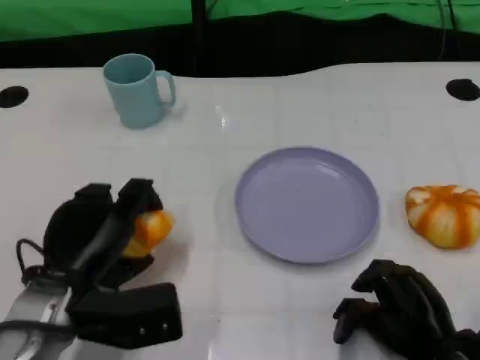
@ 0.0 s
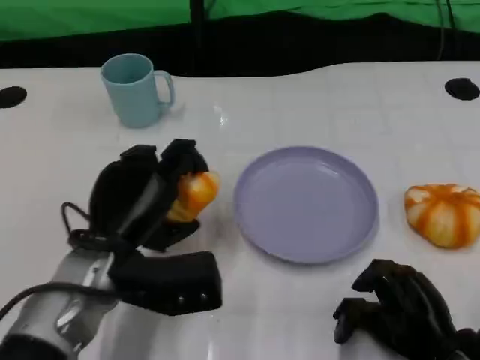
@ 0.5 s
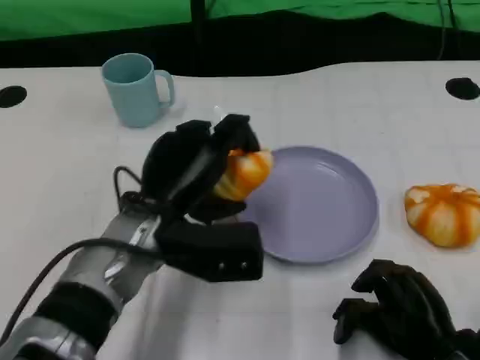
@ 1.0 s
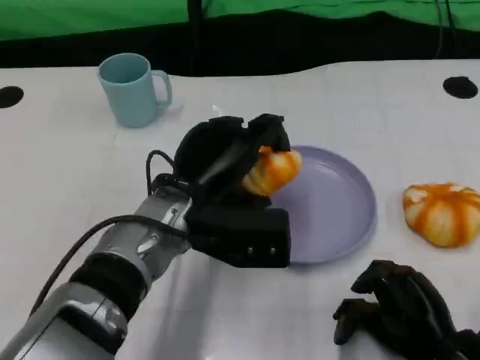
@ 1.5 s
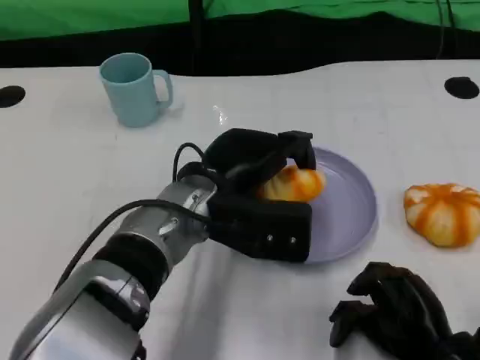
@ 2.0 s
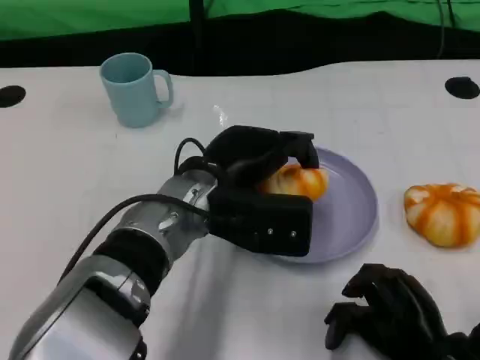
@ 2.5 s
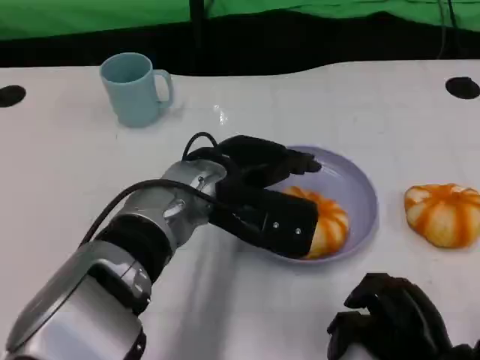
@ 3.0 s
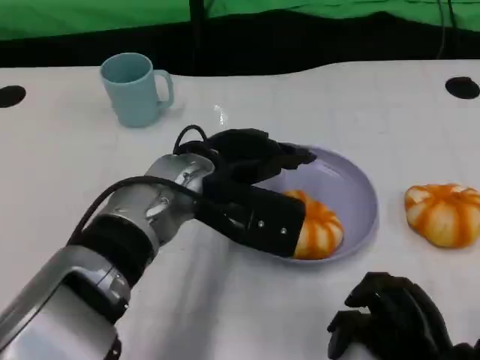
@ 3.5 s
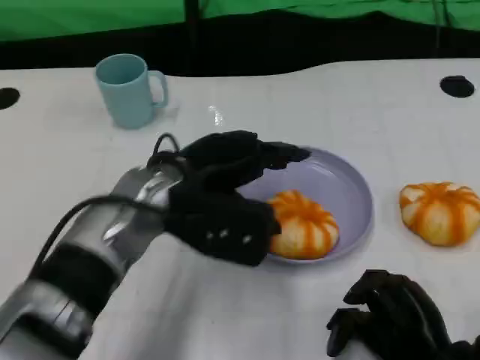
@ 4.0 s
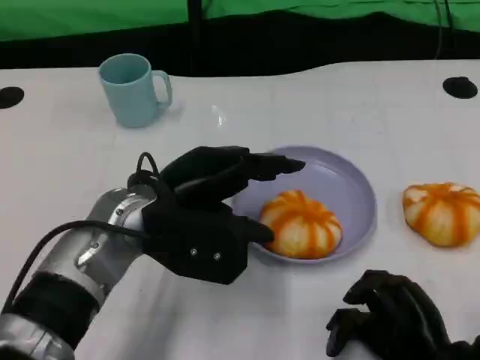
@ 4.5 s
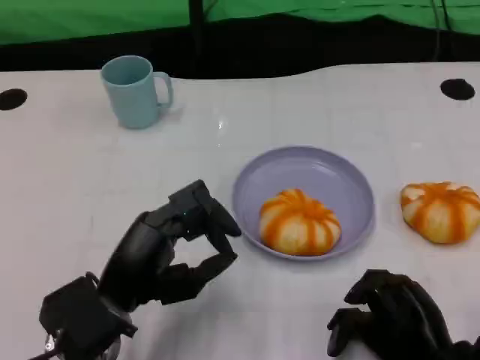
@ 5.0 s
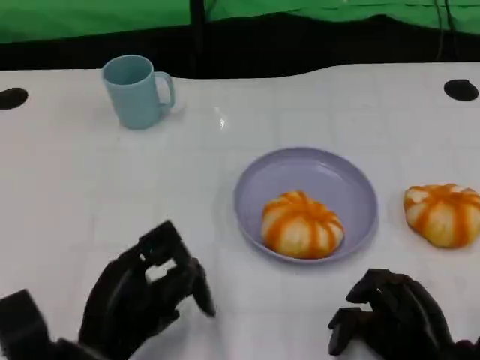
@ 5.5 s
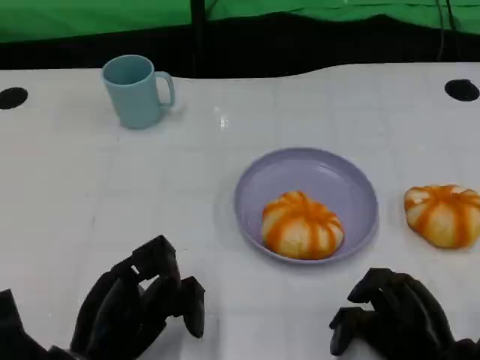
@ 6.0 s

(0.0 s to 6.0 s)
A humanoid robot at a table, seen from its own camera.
Task of the whole recording: Grasp the bread from the table and place it into the plate.
0.0 s - 2.0 s: The left hand heads to the right and forward, covering approximately 15 cm.
2.0 s - 4.0 s: The left hand moves roughly 5 cm.
4.0 s - 6.0 s: The left hand travels backward, downward and to the left by roughly 20 cm.

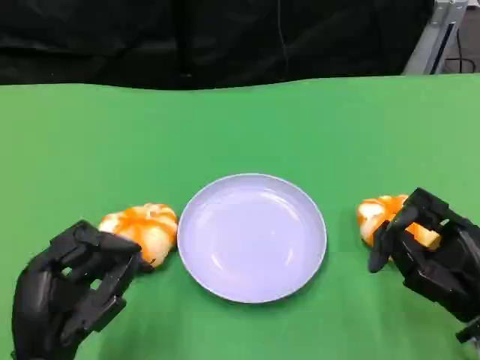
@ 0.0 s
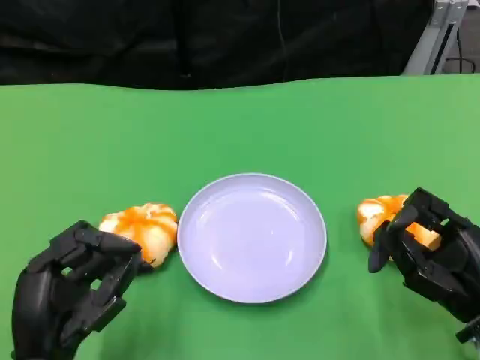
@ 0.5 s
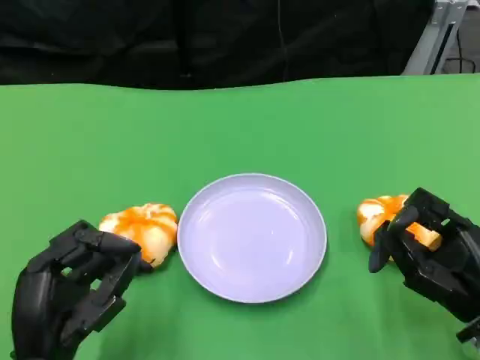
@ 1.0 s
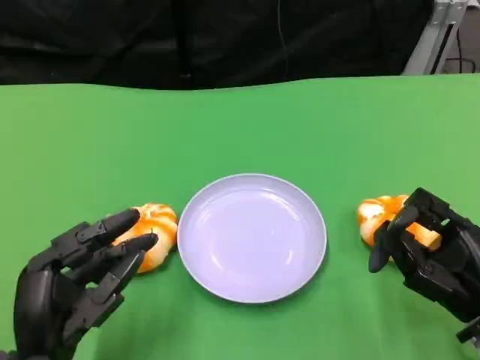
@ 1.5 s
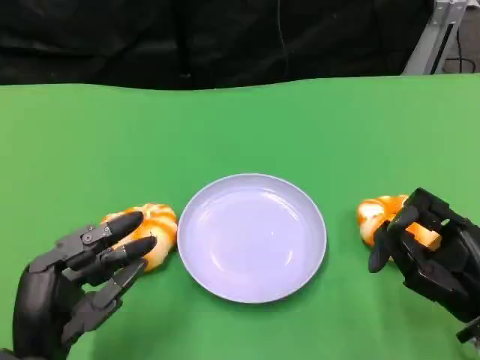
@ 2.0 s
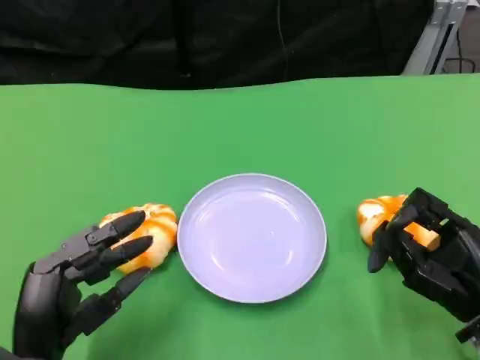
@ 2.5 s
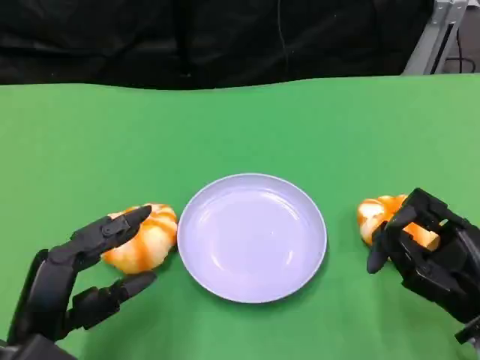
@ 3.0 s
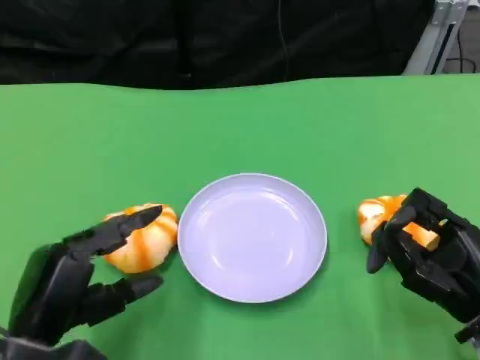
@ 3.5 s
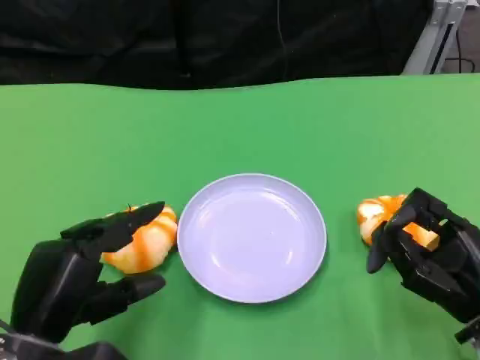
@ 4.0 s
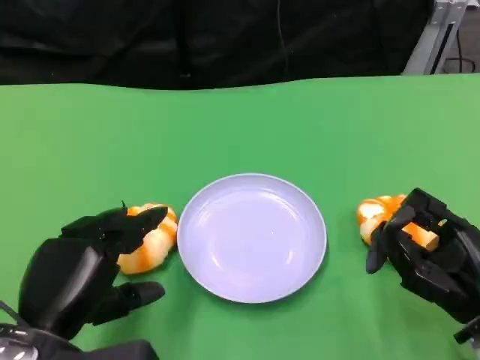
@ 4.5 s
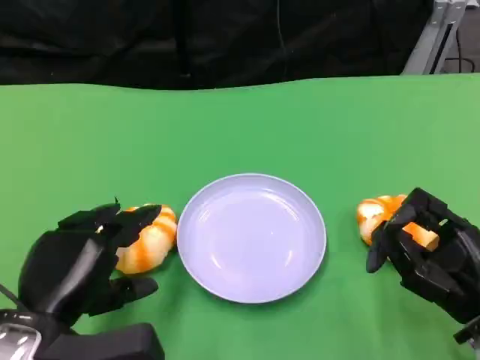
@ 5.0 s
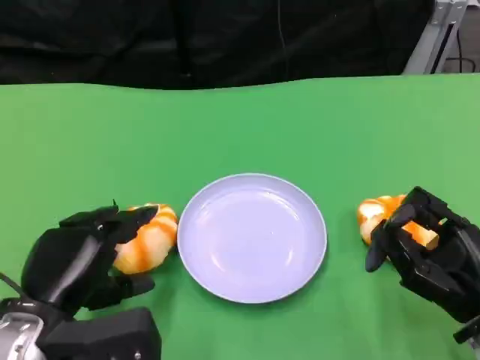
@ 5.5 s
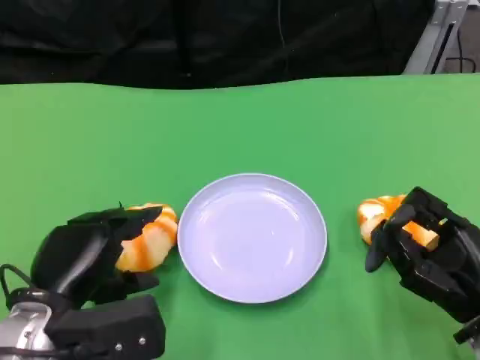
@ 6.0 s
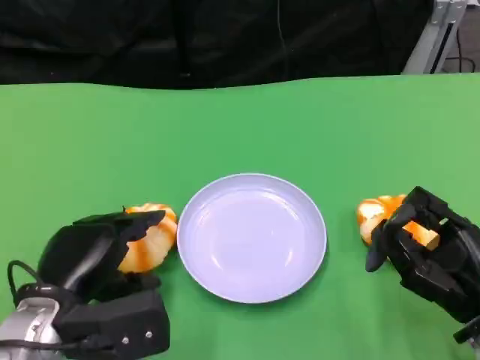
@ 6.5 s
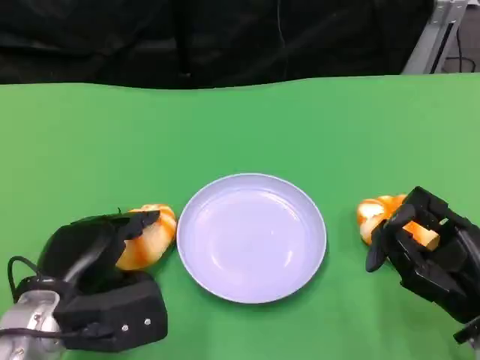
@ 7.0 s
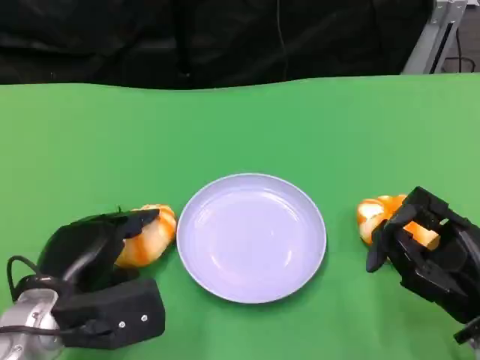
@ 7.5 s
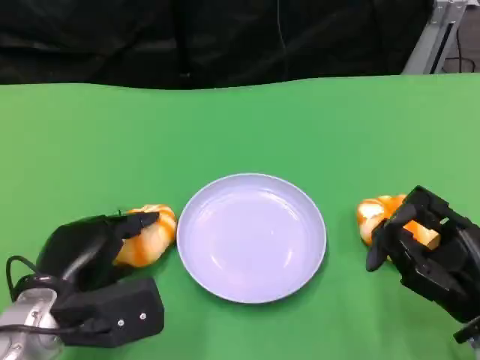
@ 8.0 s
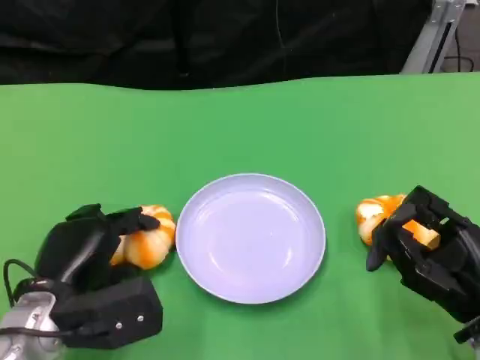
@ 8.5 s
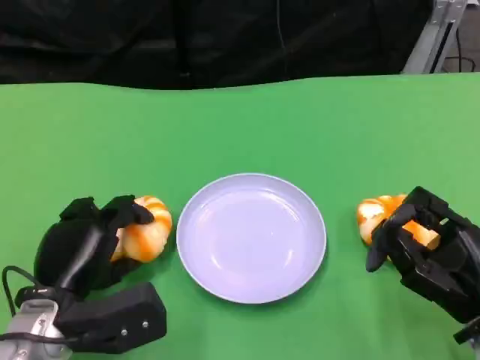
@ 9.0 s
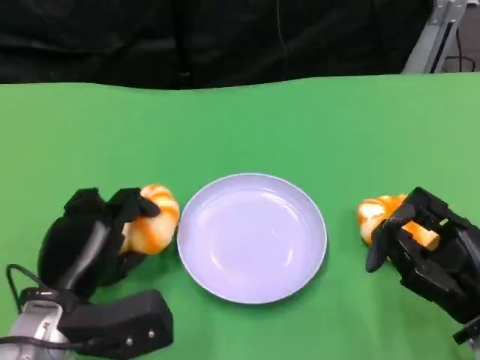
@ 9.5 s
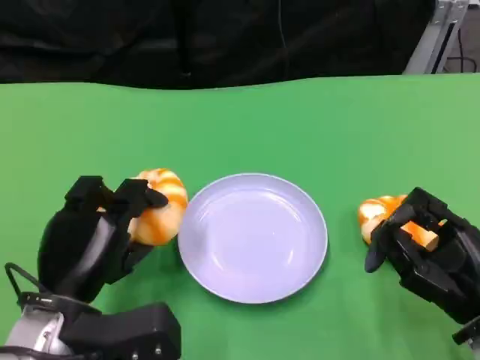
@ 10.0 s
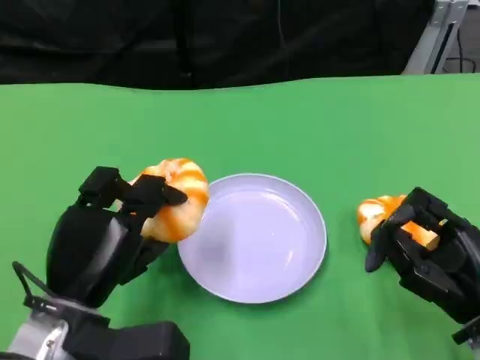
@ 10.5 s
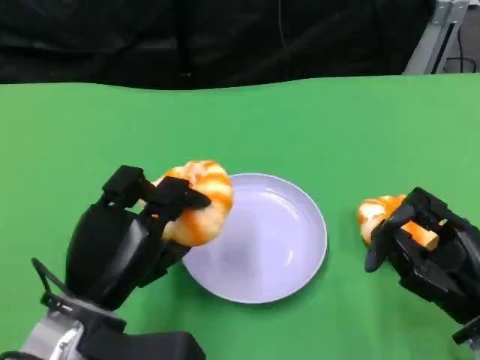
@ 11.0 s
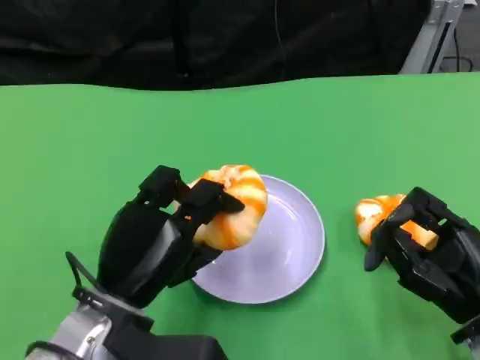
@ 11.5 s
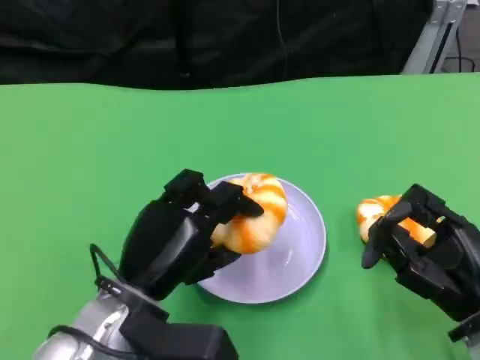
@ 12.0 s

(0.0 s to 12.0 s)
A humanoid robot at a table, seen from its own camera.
Task of the whole recording: Grasp the bread from the table and place it into the plate.
0.0 s - 2.0 s: There are only small adjustments of the hands.
4.0 s - 6.0 s: The hands make only small movements.
6.0 s - 8.0 s: There are only small adjustments of the hands.
10.0 s - 12.0 s: The left hand moves to the right, approximately 5 cm.

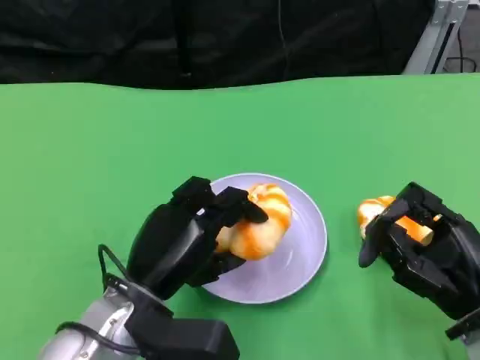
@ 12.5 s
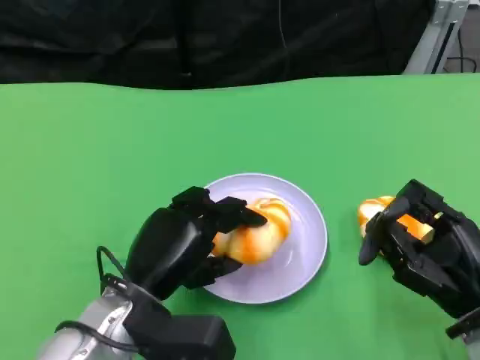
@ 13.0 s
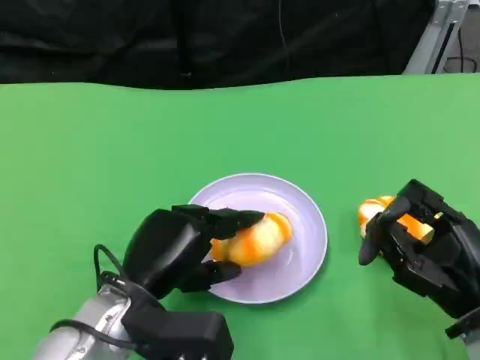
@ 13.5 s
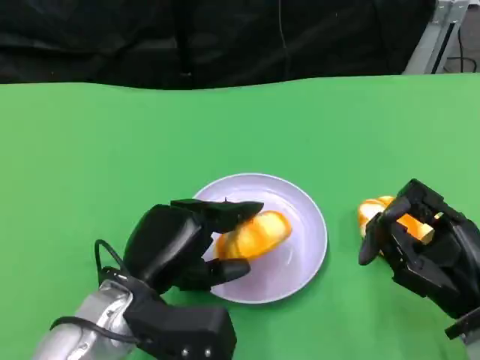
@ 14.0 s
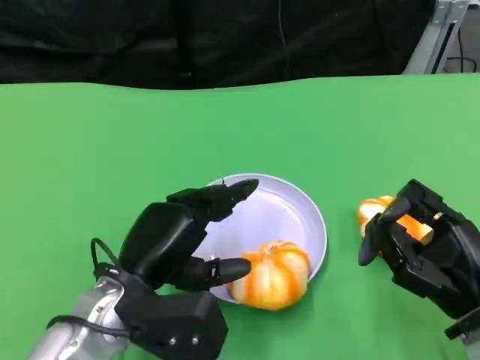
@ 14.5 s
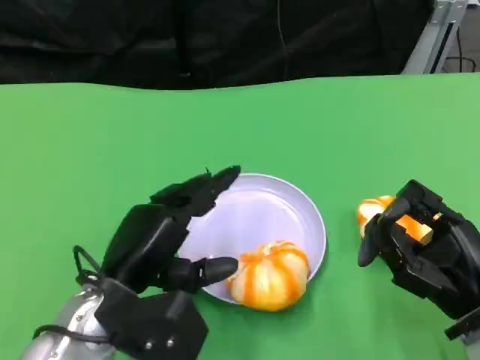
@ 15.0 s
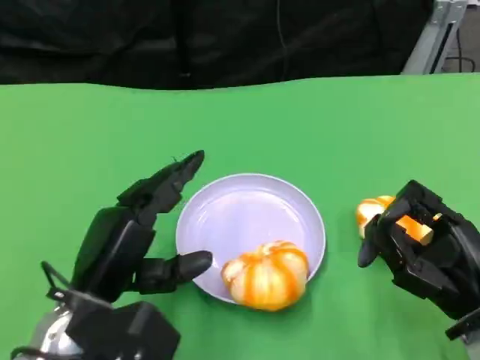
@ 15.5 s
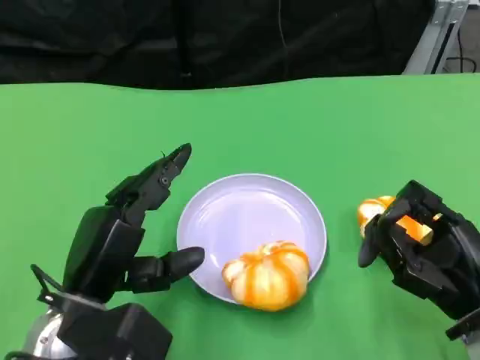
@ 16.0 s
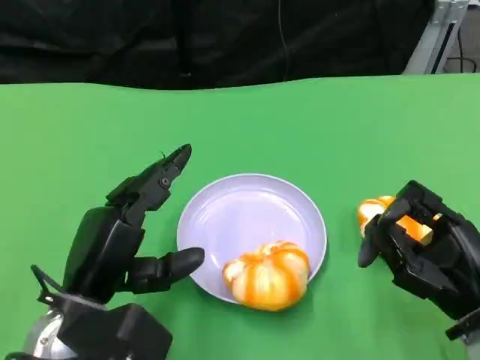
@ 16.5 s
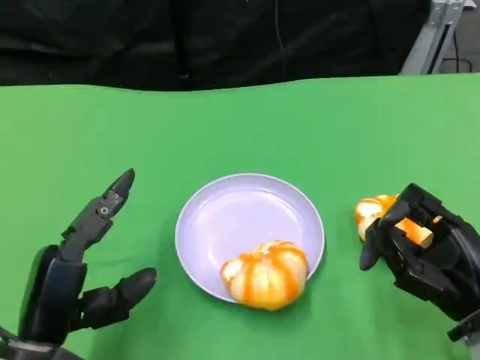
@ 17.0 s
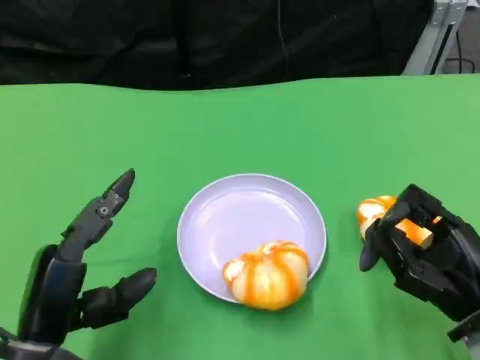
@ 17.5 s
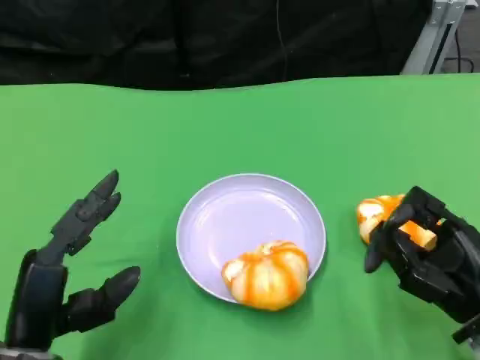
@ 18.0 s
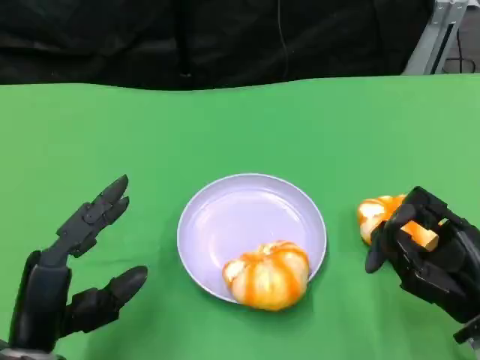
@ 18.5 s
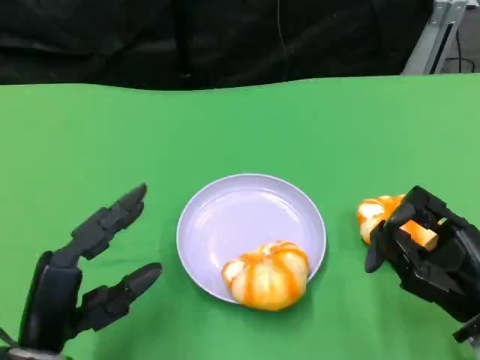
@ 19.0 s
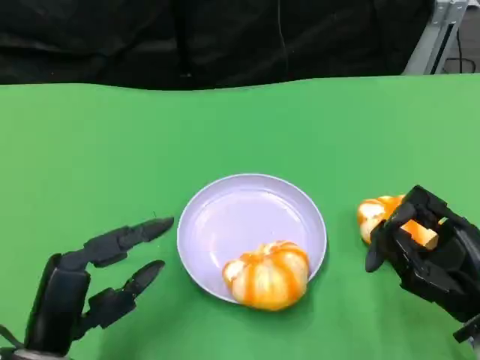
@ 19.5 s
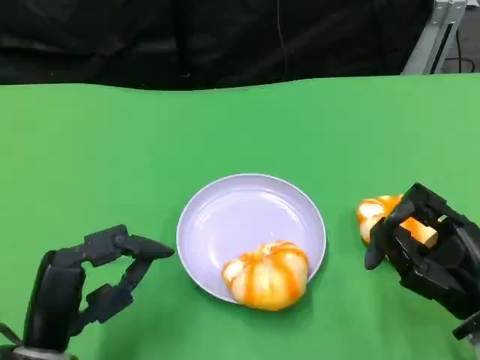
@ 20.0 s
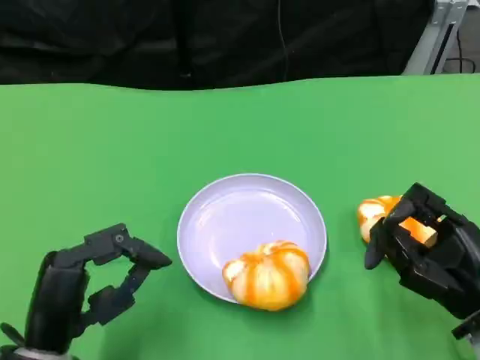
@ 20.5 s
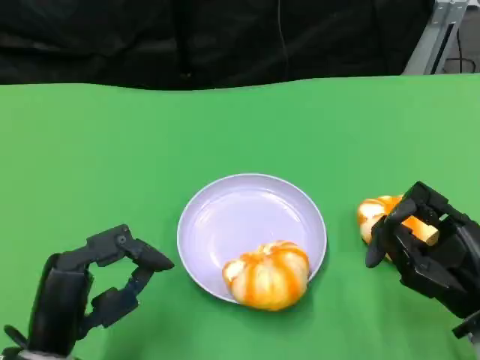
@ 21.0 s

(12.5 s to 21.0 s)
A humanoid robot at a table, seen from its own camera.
Task of the whole recording: Grasp the bread from the table and place it into the plate.
12.5 s - 14.5 s: There are only small adjustments of the hands.
16.5 s - 19.0 s: The left hand shifts by some 5 cm.
19.0 s - 21.0 s: The hands move only a little.
